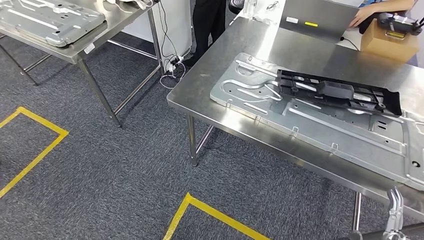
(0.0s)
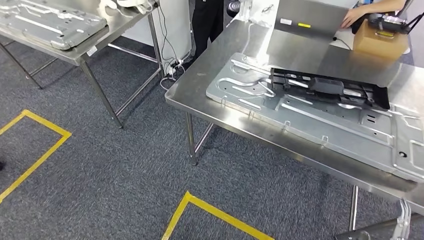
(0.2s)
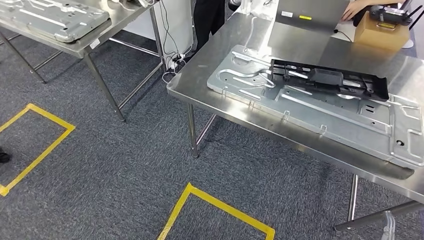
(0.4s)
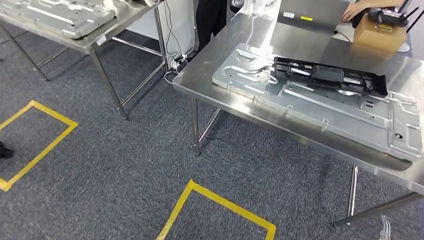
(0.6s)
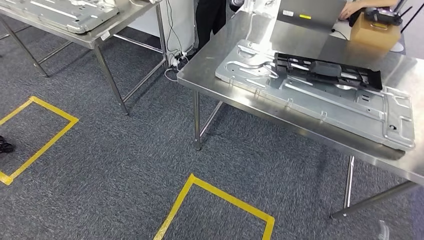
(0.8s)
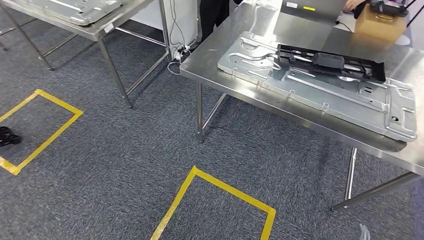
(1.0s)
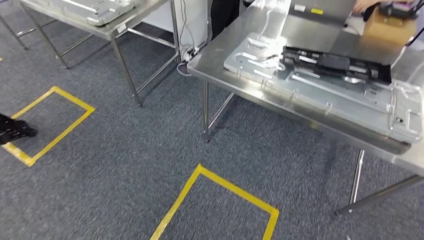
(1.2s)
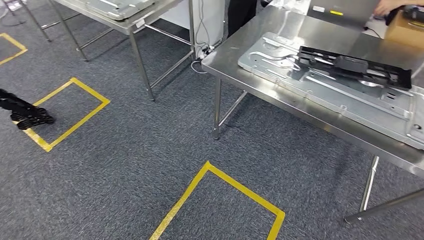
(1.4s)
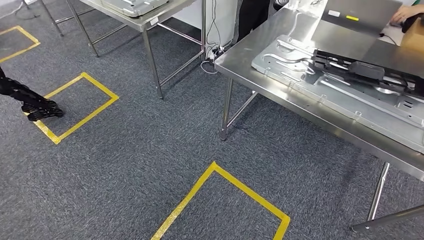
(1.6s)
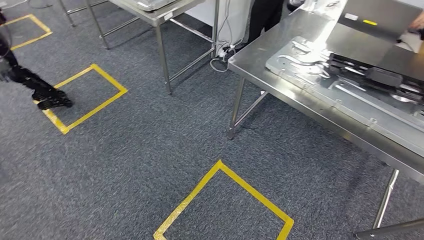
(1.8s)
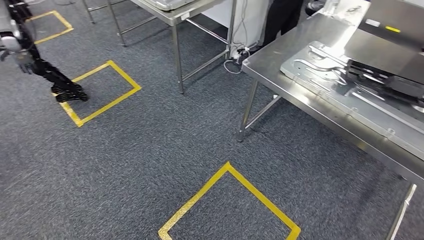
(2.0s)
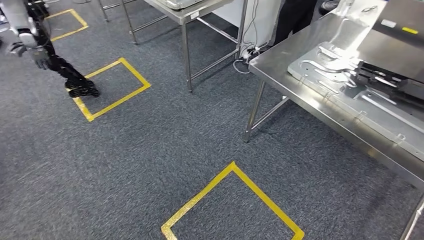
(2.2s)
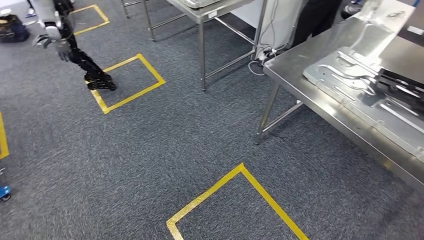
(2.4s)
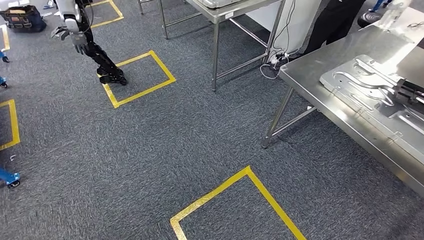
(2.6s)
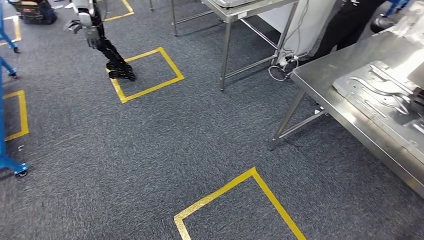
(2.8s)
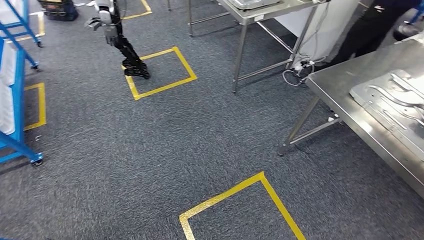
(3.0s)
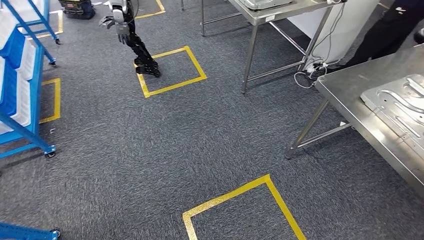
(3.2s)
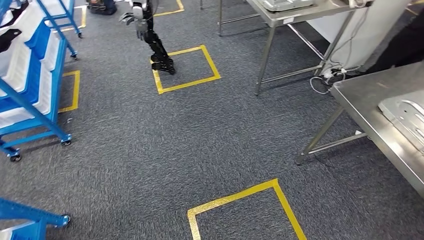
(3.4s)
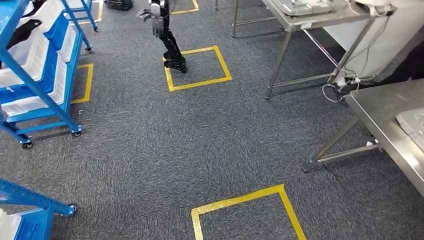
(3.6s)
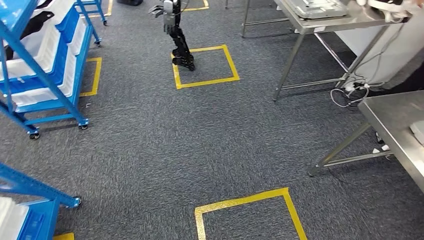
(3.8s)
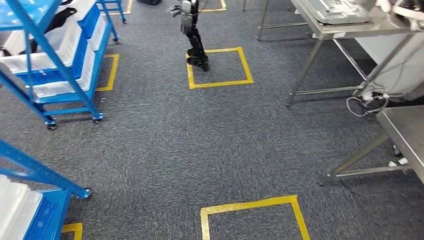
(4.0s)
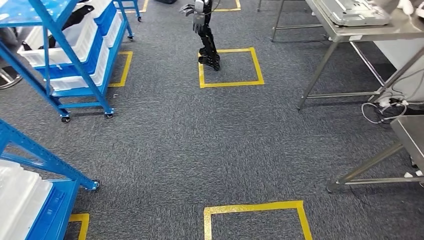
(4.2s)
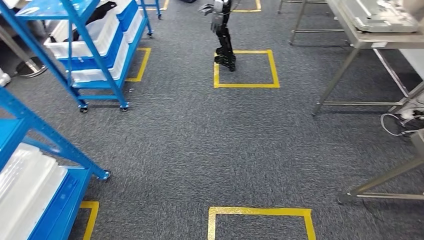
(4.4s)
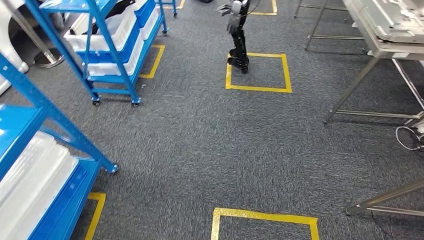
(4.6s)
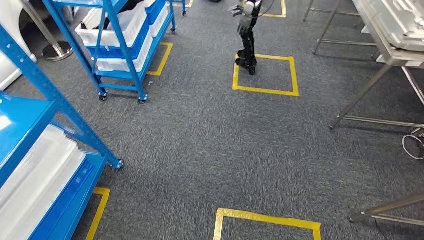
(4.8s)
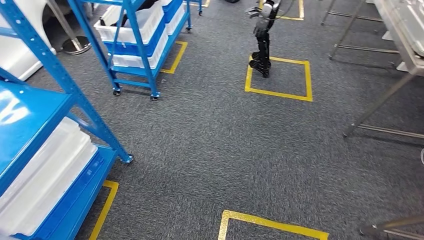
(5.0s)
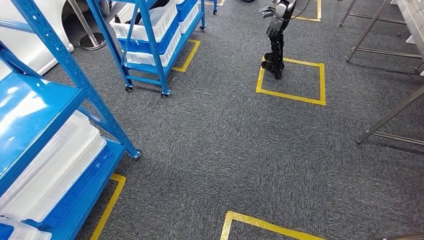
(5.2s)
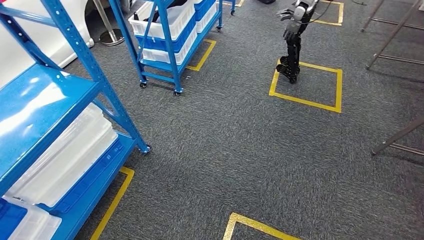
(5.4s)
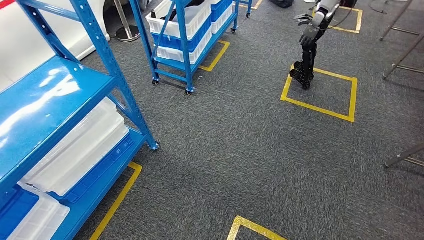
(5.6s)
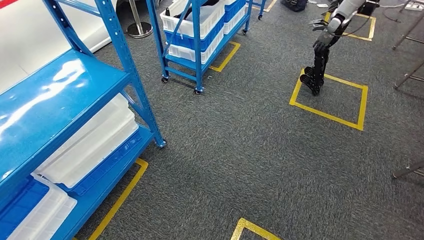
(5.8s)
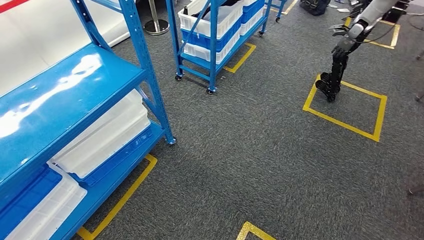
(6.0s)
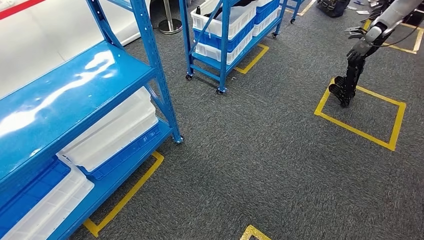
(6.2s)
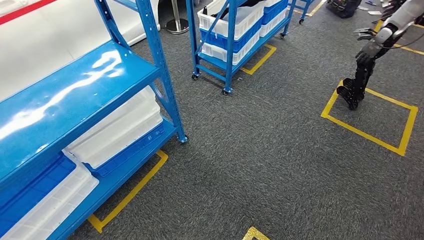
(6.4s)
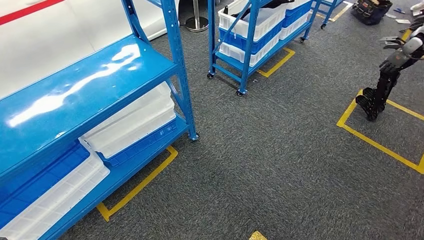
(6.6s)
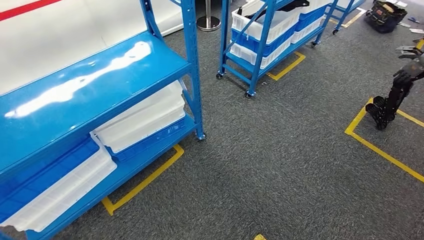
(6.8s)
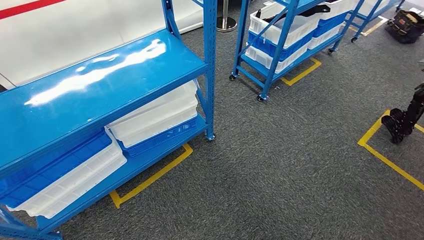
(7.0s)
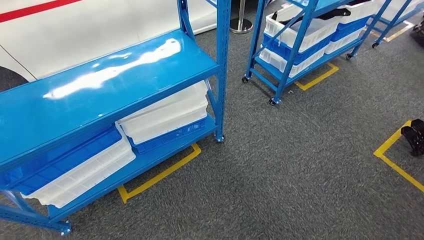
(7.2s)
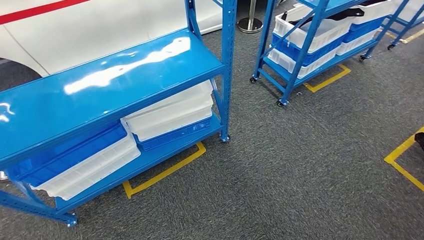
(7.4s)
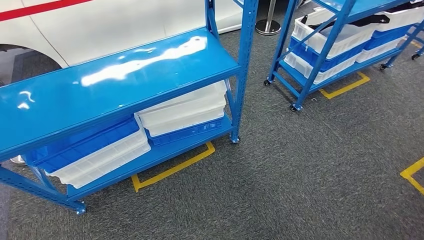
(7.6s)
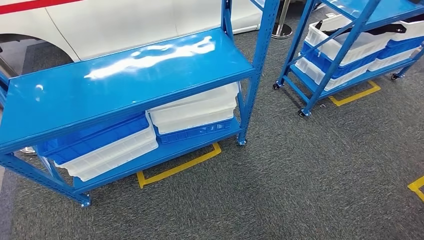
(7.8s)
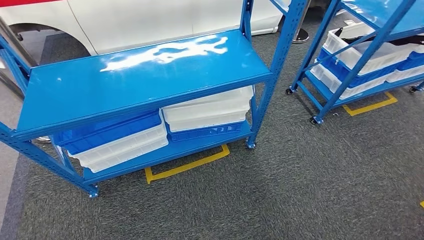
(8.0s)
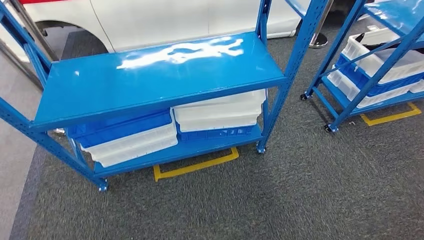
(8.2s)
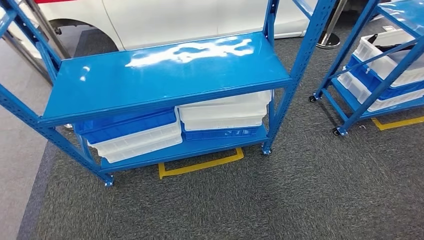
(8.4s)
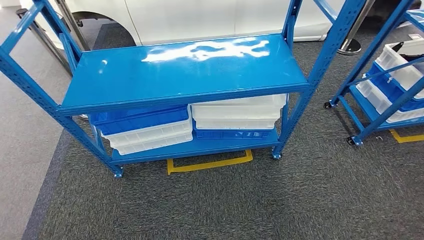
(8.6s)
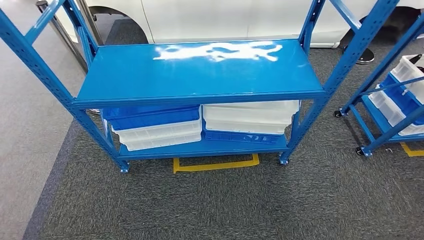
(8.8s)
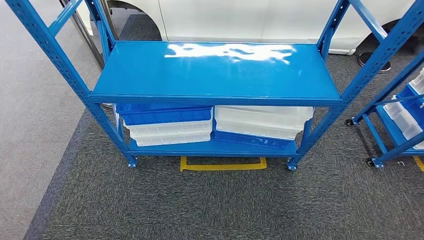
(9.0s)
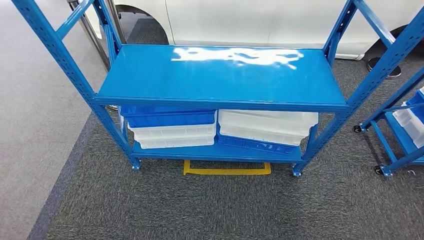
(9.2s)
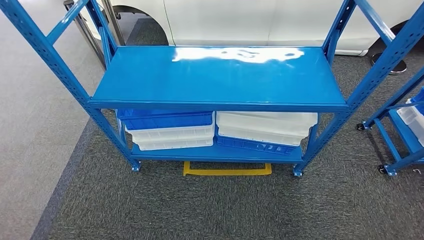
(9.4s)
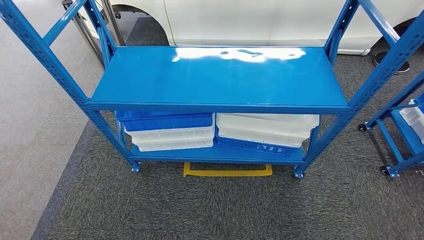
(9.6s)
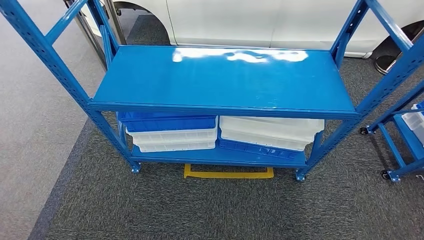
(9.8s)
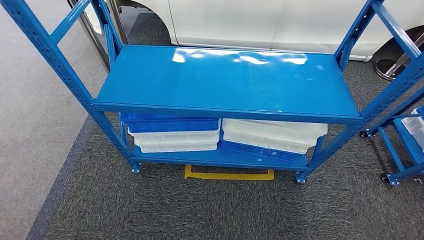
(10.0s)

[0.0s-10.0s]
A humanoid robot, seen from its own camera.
Step, 1.6s to 10.0s: Move to the initial position of the shelf.

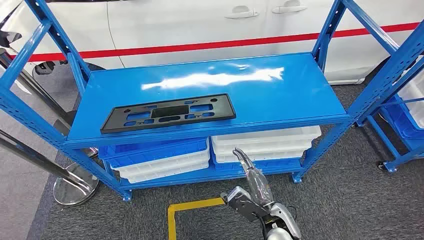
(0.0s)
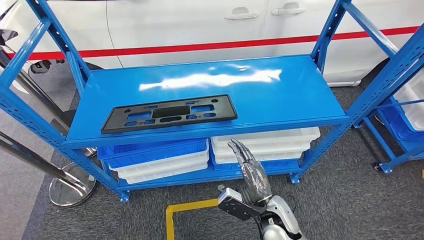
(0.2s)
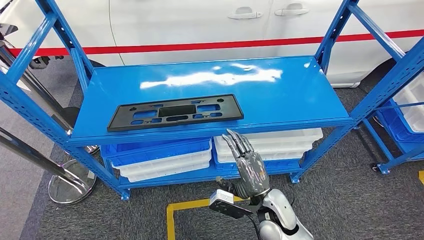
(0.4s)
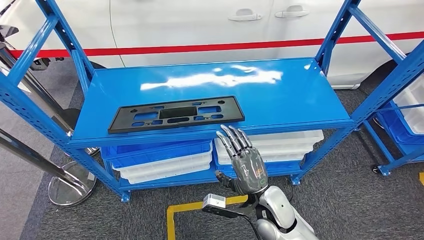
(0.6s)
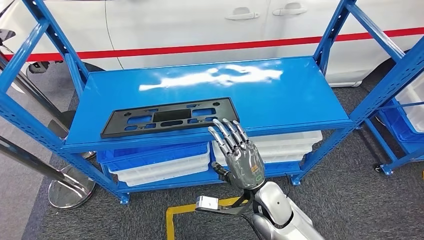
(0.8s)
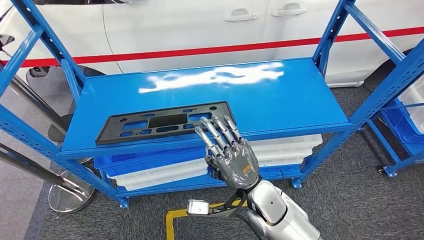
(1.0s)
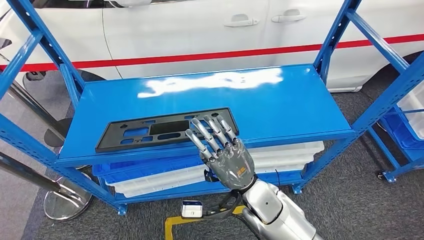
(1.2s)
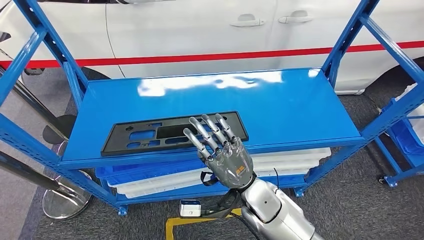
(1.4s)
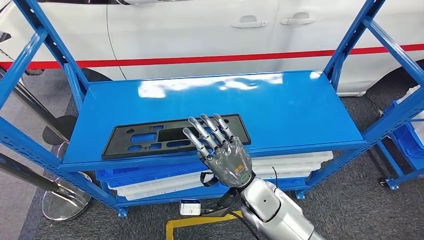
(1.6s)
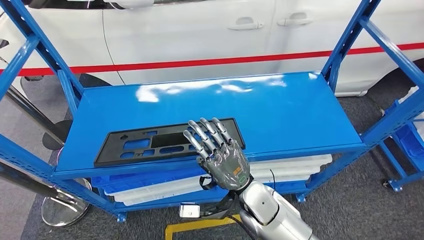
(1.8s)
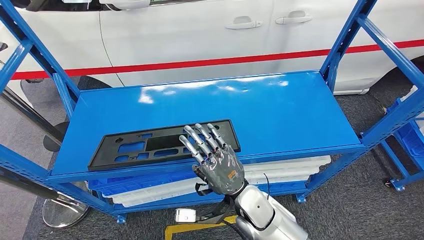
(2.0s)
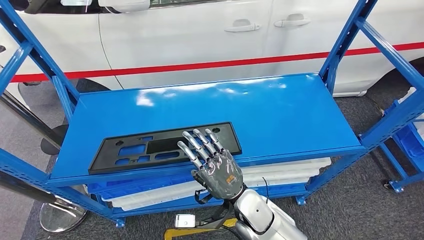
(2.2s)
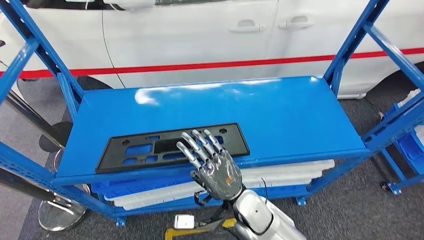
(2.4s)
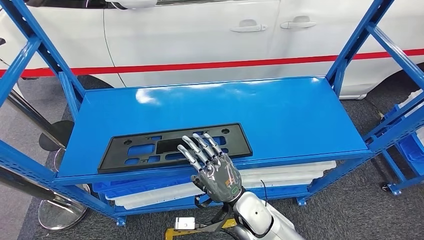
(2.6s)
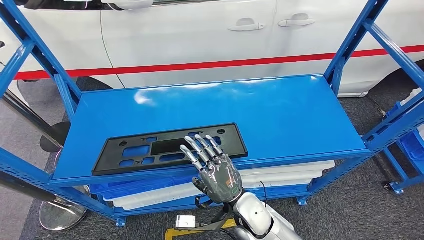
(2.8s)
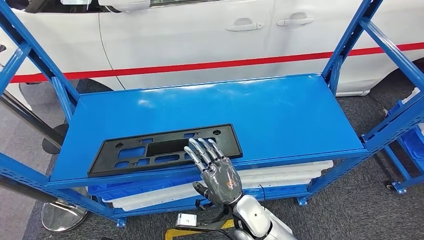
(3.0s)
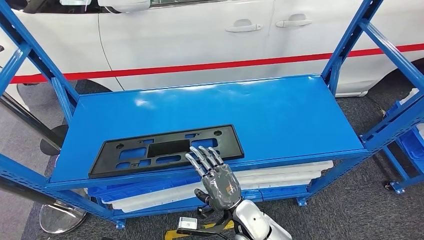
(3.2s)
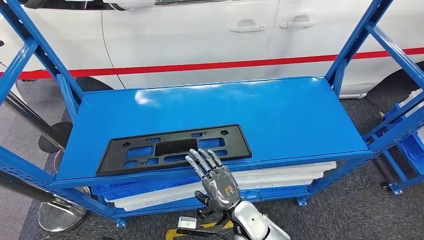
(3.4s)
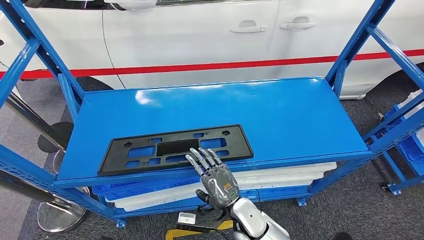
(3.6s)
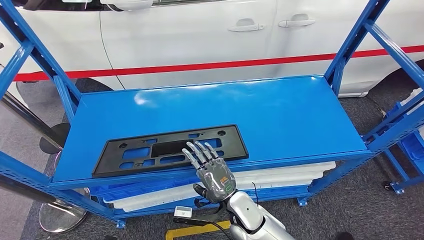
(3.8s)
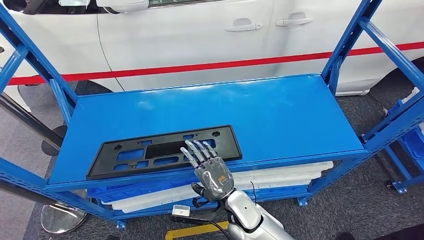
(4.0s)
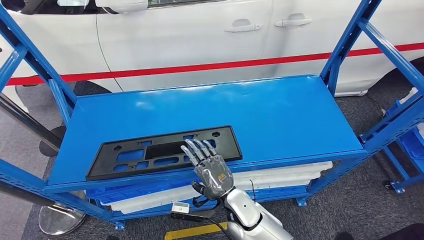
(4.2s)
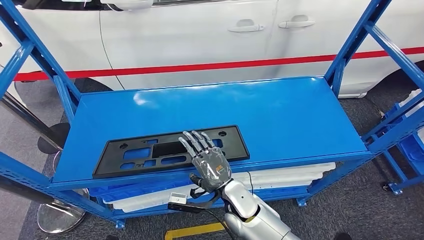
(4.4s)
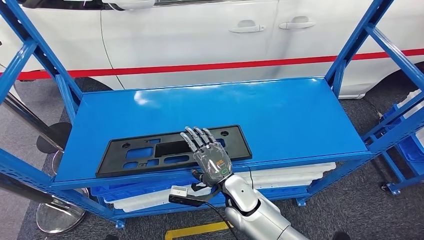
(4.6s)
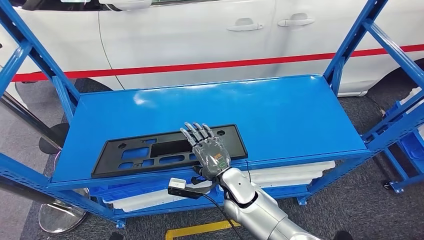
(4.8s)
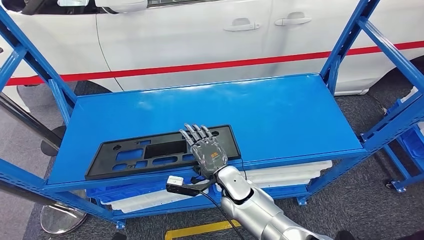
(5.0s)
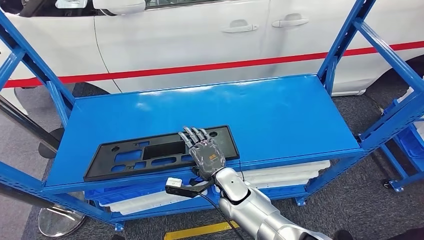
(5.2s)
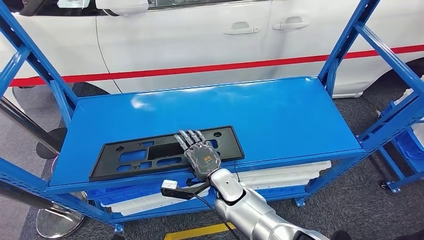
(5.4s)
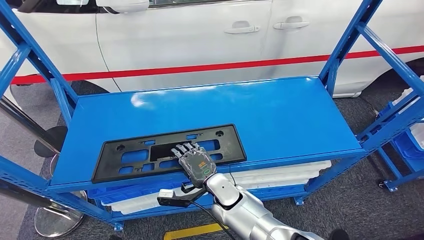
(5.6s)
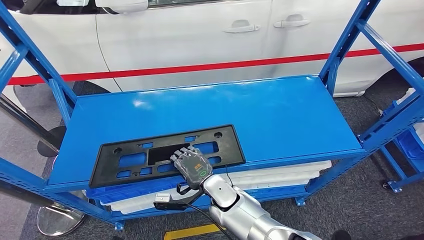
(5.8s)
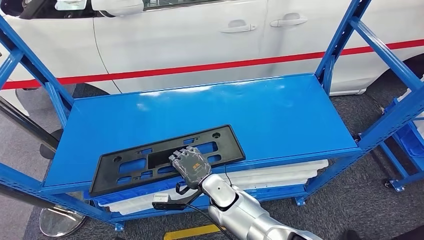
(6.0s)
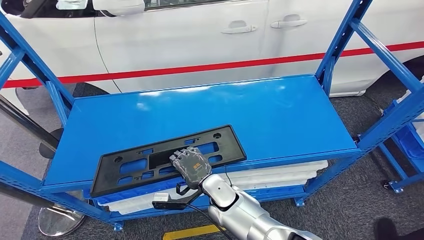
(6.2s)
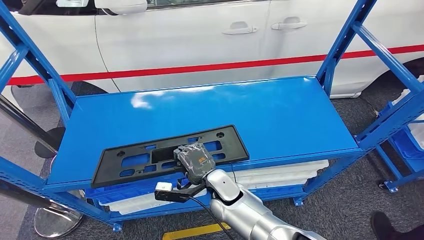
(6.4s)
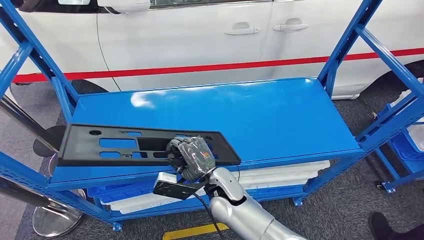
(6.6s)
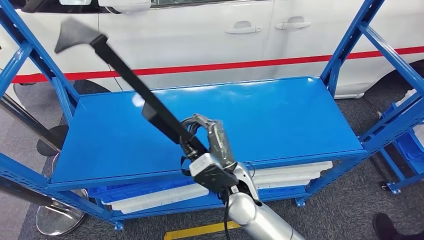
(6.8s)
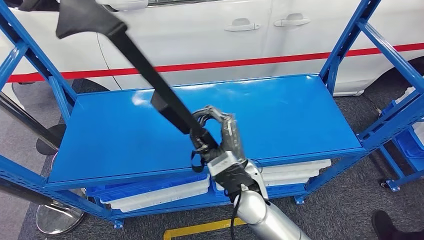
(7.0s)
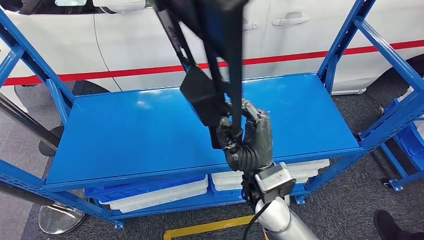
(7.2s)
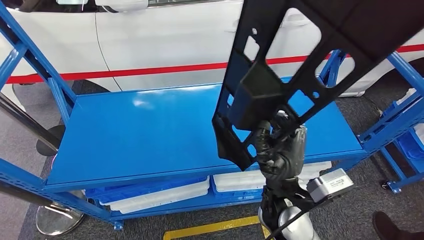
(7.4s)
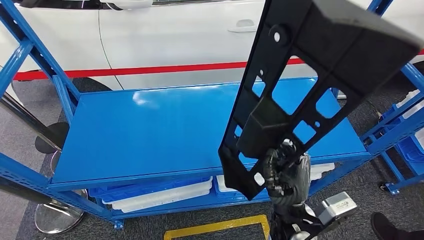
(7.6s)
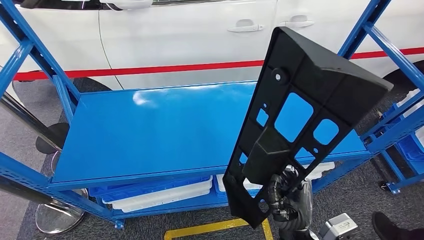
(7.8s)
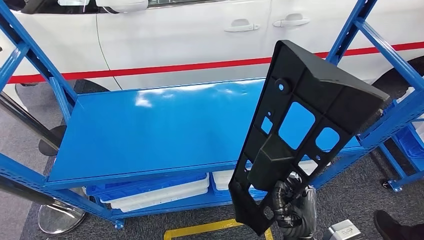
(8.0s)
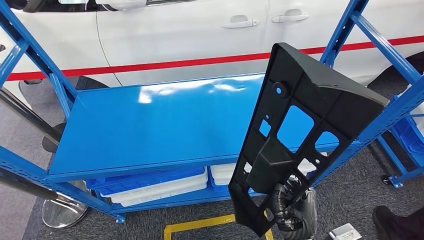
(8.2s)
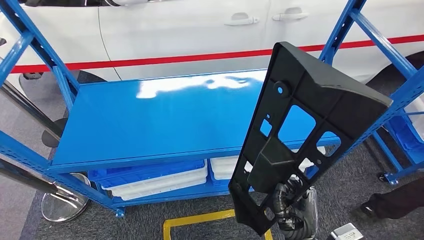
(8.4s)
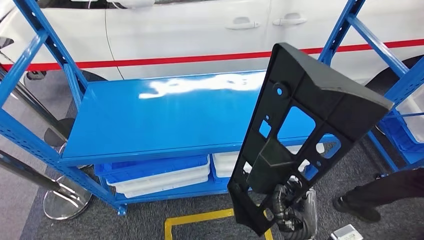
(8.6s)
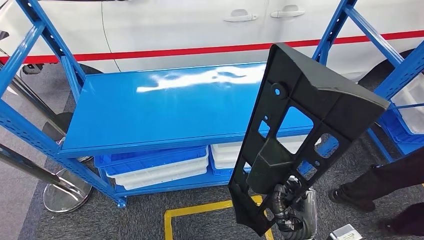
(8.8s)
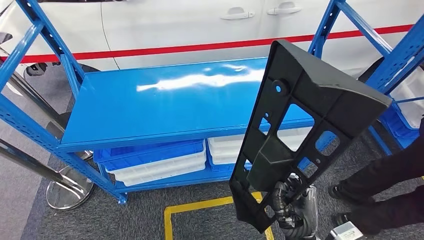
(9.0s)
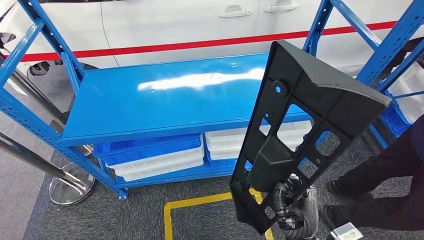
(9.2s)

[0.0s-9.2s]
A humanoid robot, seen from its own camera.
Step, 0.0s to 7.6s: Pick up the large material from the shelf.
